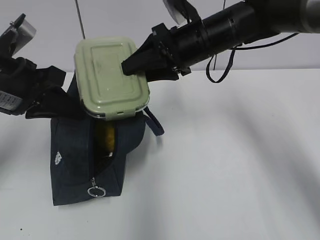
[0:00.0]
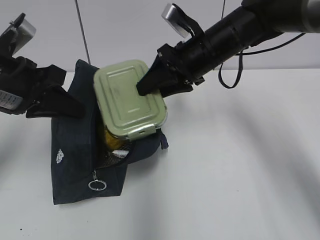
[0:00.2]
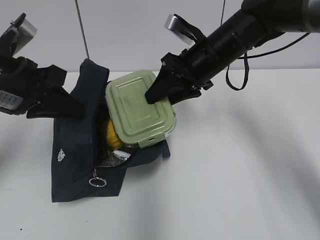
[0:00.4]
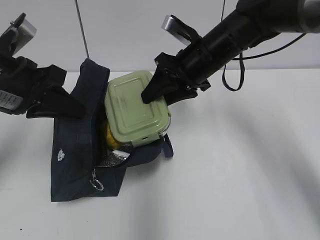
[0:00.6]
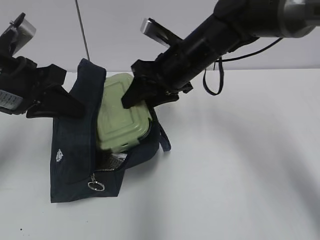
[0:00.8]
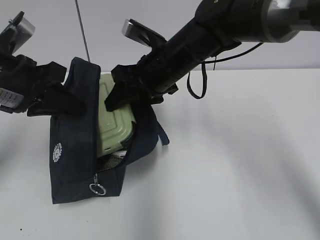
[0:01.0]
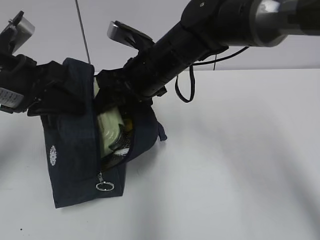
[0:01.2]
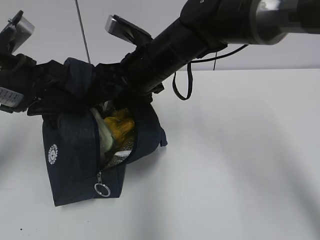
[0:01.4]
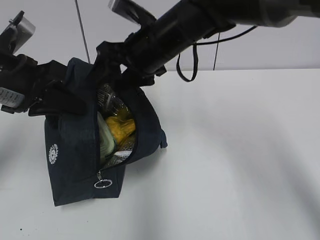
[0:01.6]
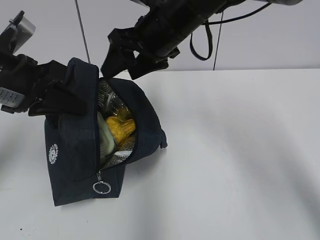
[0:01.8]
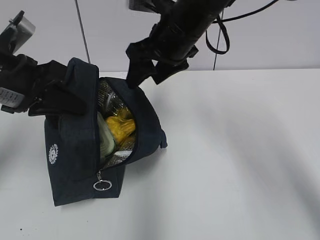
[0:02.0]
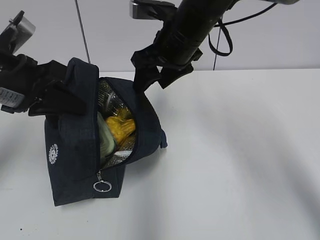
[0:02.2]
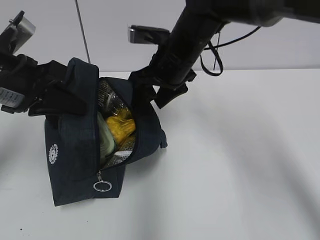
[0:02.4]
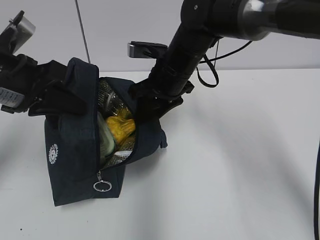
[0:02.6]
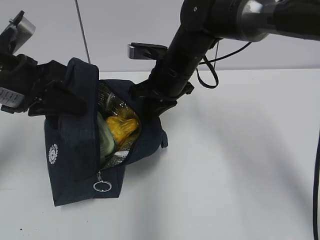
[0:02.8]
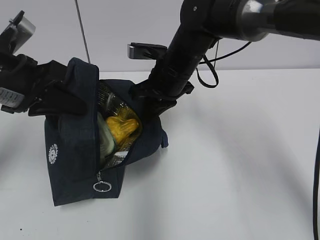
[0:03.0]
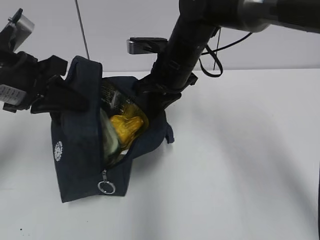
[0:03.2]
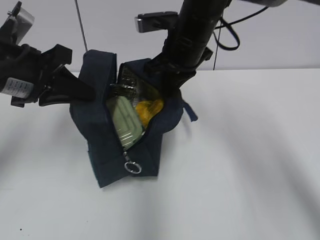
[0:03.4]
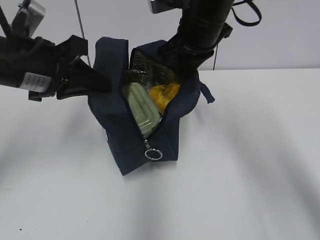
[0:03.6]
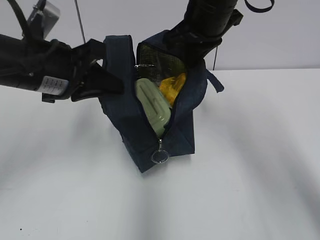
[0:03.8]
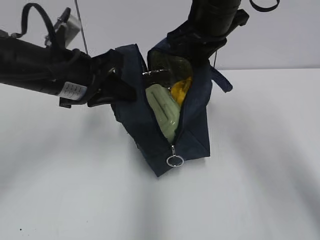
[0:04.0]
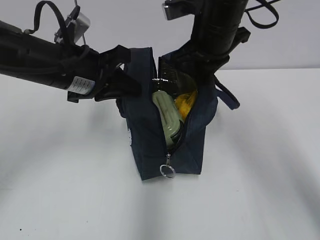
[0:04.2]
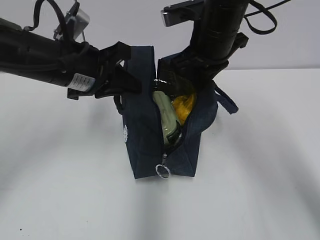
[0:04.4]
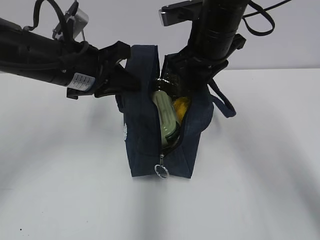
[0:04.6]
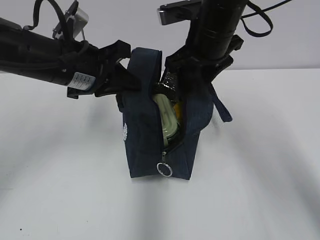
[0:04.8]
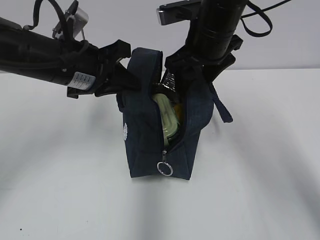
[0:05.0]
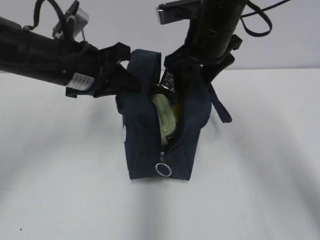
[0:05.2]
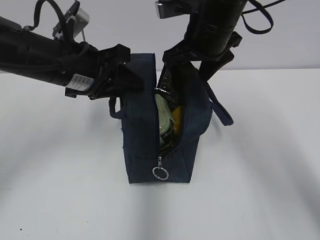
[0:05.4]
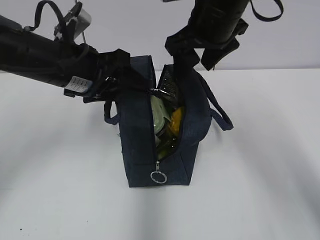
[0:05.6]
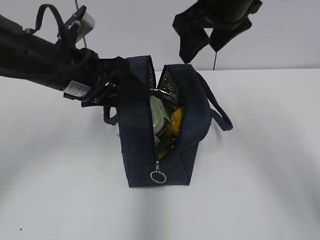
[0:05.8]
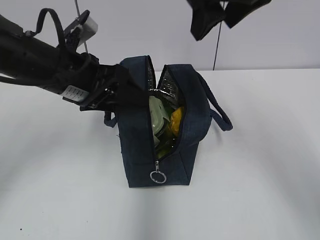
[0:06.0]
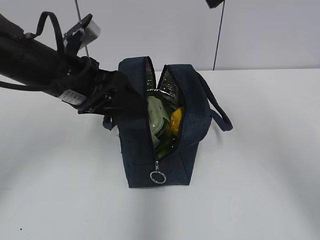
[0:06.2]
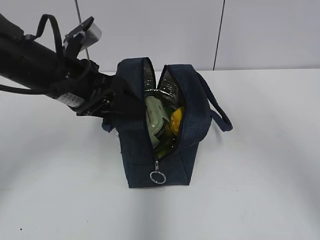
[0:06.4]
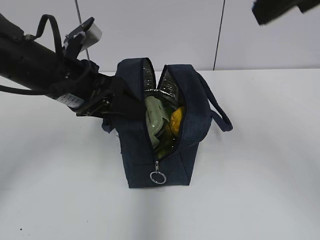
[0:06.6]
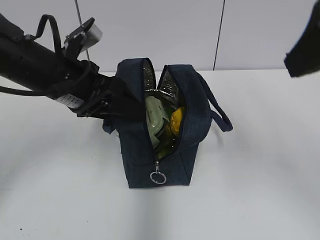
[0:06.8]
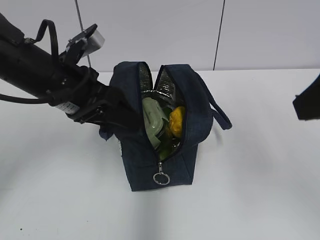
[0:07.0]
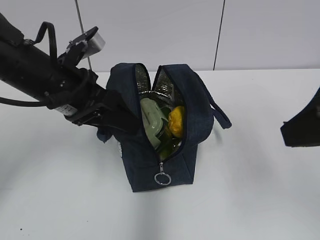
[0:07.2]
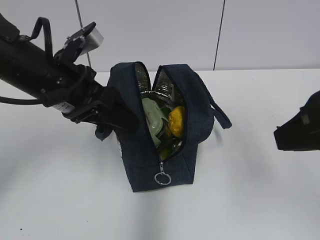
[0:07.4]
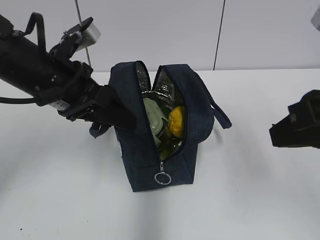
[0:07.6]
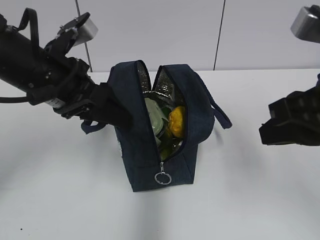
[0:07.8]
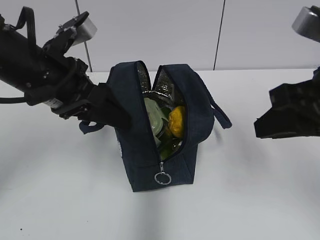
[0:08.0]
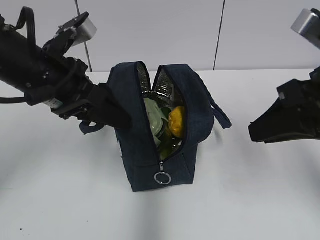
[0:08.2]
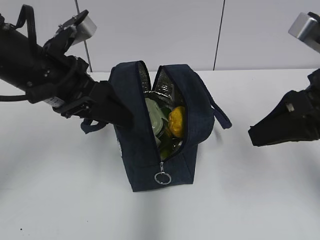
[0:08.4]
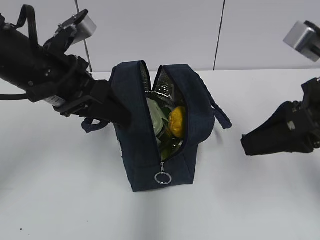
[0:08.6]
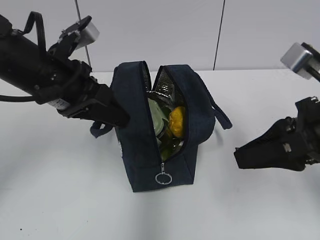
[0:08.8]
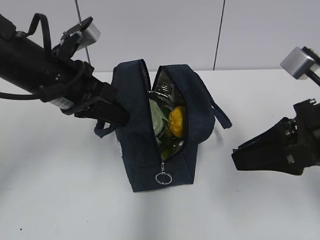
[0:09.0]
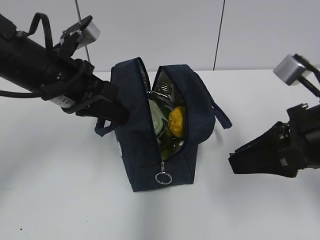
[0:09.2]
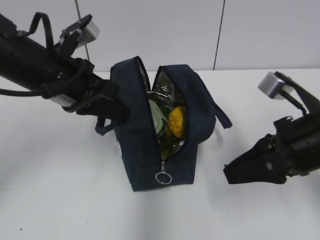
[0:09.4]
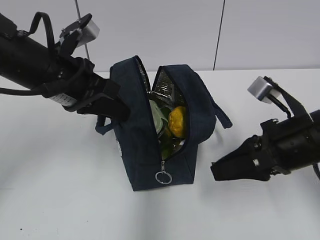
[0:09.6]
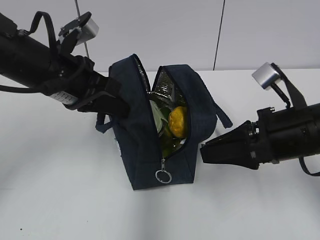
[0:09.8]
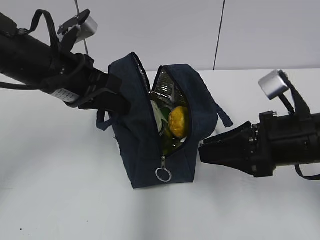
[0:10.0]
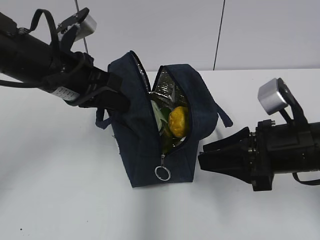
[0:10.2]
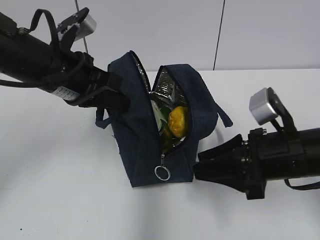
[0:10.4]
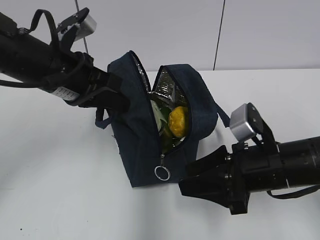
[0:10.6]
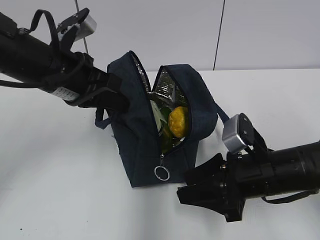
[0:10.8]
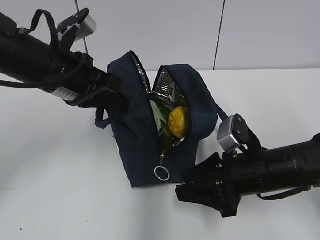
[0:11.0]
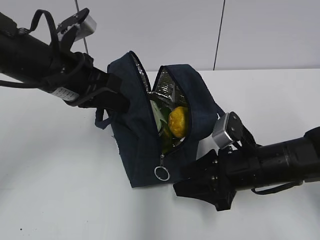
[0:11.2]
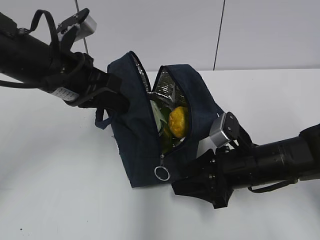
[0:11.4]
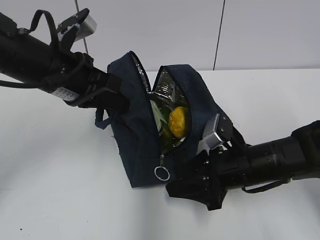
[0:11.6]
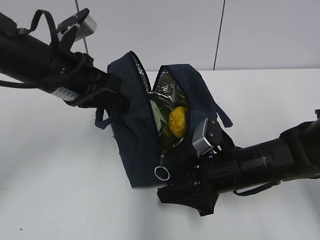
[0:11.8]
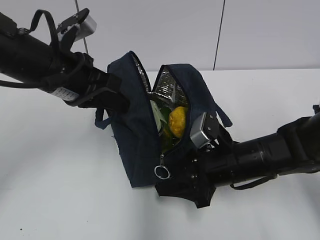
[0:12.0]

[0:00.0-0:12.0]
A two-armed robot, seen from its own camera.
Step, 0:01.6 to 0:02.8: Grab the lunch bag with your right hand.
Step, 0:03.0 to 0:05.4: Move the lunch bag to the right.
0:00.0 to 0:01.6: The right gripper is displaced to the left by roughly 5 cm.
0:01.6 to 0:03.0: The right gripper goes approximately 5 cm downward, and closes up.
0:03.0 to 0:04.4: The left gripper shifts approximately 10 cm to the right, while the right gripper travels upward and to the right by some 10 cm.
0:04.4 to 0:06.0: The right gripper shifts some 15 cm upward and backward, and opens, while the left gripper opens.
0:06.0 to 0:07.6: The right gripper is displaced backward and downward by some 20 cm, and closes.
0:07.6 to 0:09.0: The right gripper moves downward, roughly 5 cm. The left gripper closes.
0:09.0 to 0:10.4: The right gripper heads downward, covering about 10 cm.
0:10.4 to 0:12.0: The right gripper heads downward and to the left, covering some 10 cm.

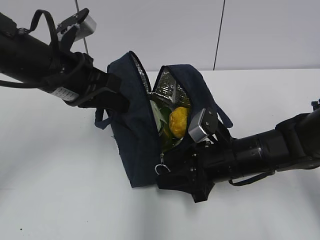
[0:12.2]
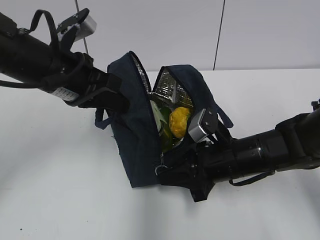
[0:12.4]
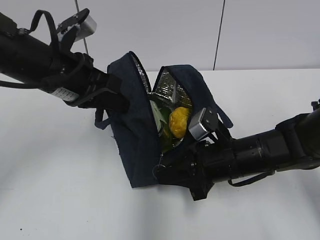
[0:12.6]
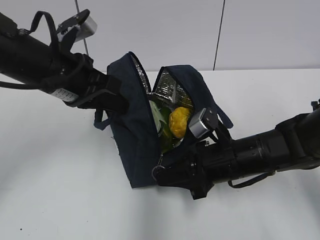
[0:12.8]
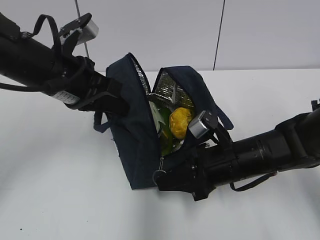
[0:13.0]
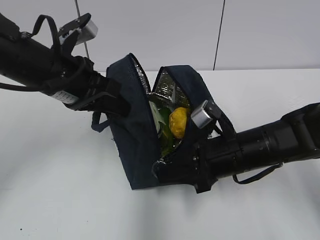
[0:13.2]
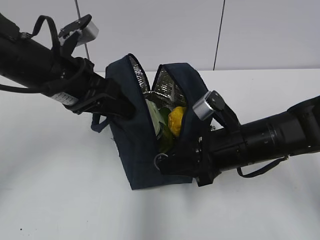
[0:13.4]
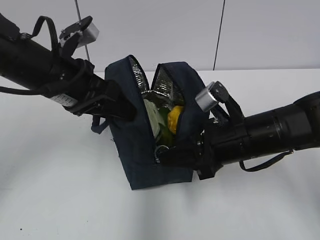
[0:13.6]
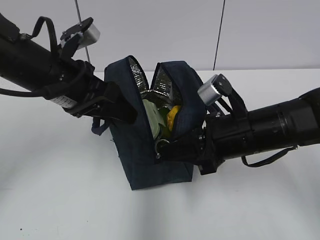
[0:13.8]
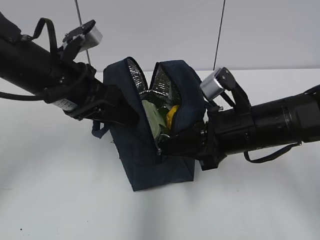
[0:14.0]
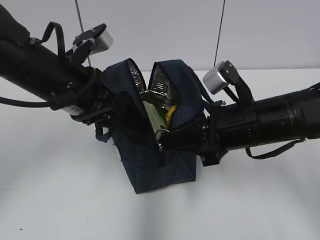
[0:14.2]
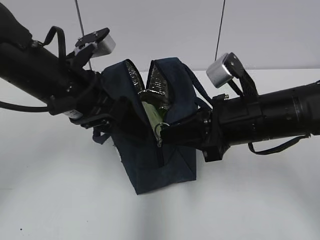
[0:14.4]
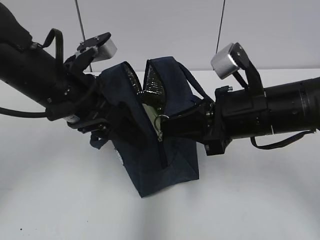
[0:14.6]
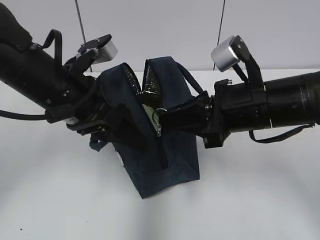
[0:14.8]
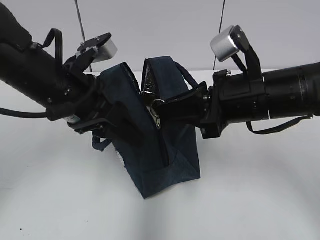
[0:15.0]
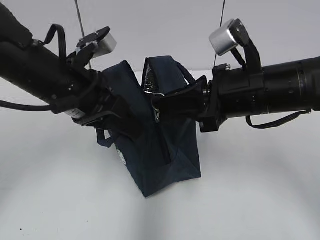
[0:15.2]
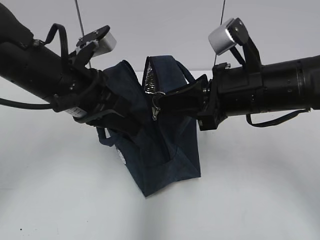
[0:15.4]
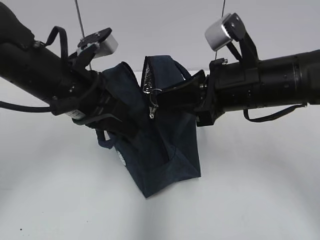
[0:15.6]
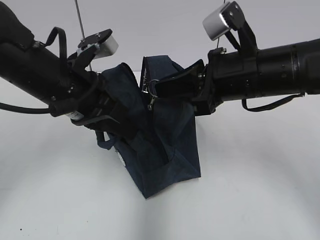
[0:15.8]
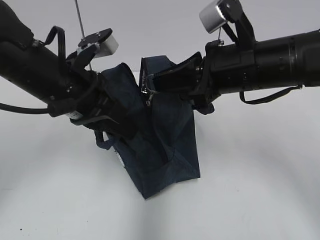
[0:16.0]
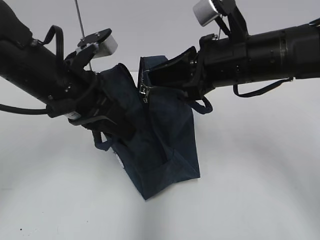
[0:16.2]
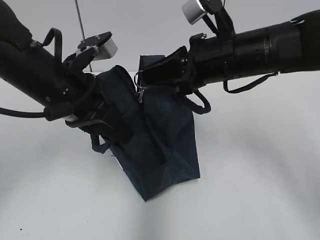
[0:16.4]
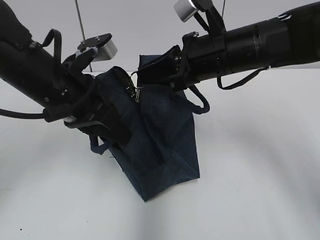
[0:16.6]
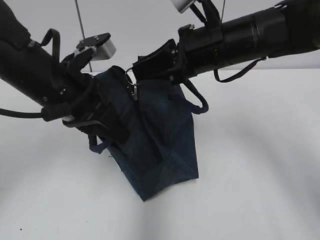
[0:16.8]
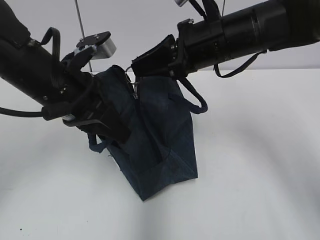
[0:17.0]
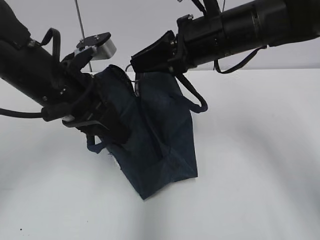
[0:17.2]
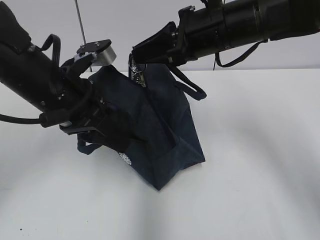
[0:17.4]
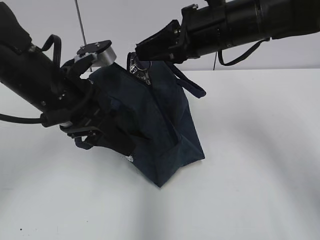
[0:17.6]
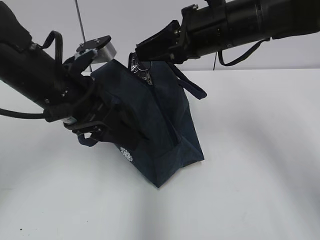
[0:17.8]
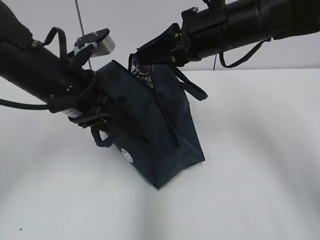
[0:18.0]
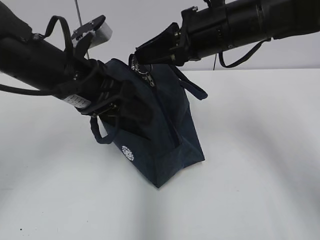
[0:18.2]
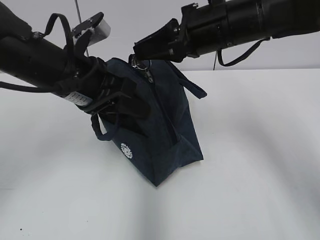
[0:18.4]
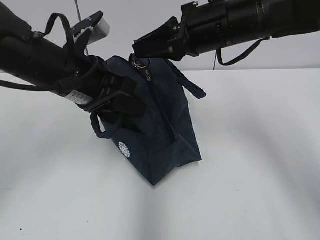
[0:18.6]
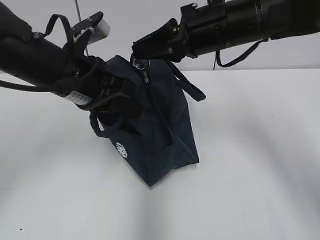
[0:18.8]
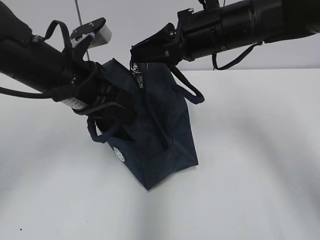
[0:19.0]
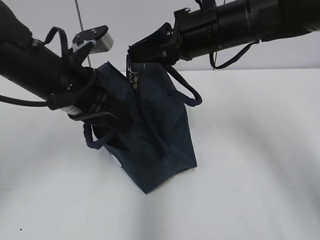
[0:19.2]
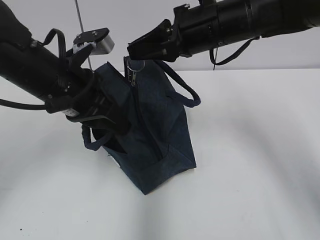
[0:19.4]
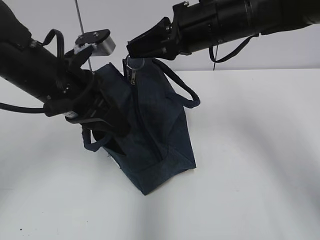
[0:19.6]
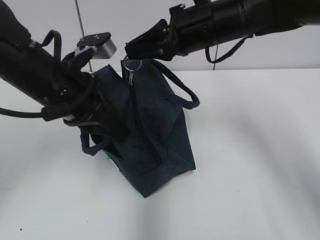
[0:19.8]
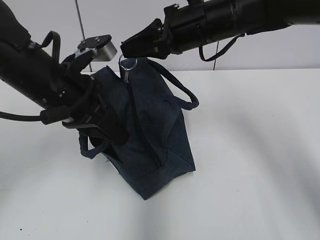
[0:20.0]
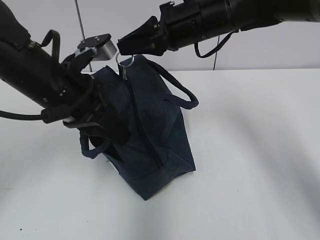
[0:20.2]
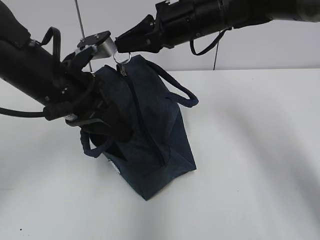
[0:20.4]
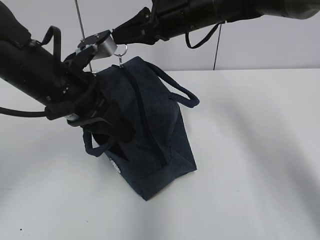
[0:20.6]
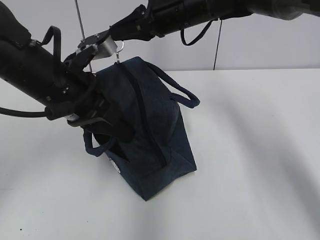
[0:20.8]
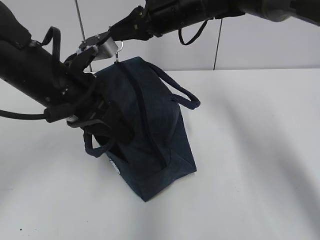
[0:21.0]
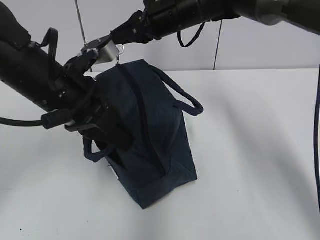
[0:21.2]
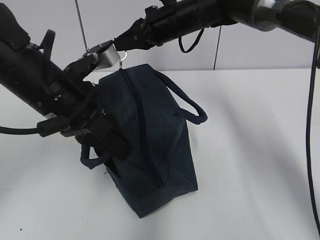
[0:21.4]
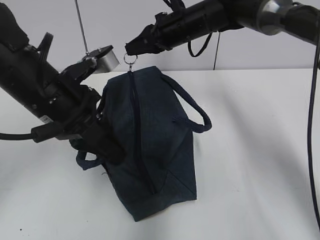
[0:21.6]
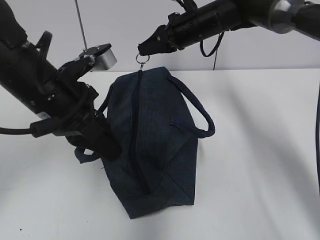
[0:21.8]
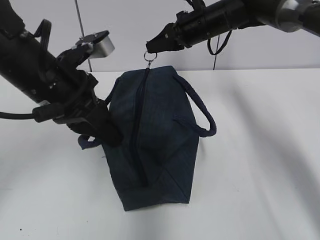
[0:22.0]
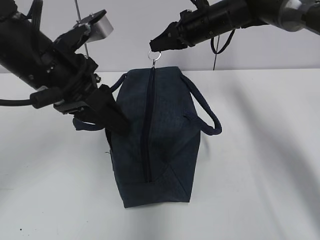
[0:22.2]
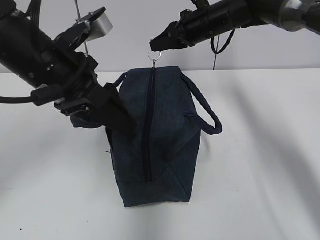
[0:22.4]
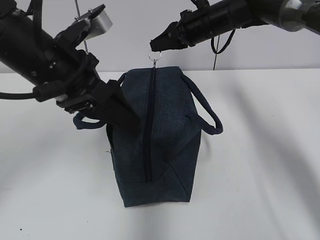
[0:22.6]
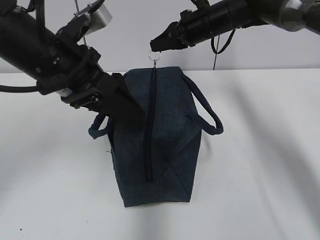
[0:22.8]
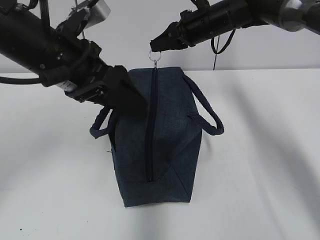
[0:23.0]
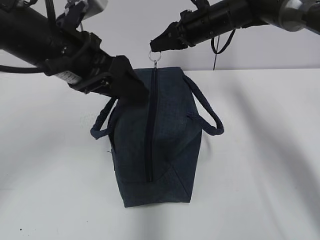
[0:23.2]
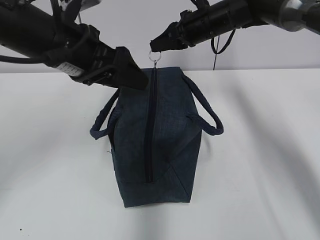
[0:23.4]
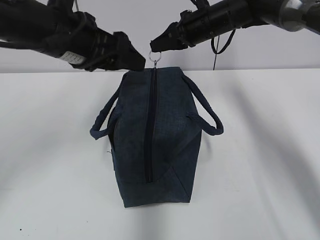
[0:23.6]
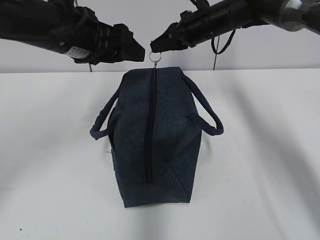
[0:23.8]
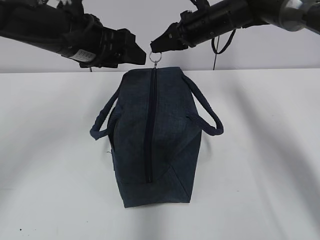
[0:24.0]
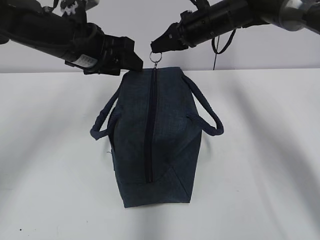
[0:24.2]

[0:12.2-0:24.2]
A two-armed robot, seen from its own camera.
0:12.2 to 0:13.8: The left gripper opens its fingers. The right gripper moves upward, approximately 5 cm, and closes.
0:13.8 to 0:15.2: The left gripper closes. Meanwhile the right gripper shifts about 5 cm upward.
0:15.2 to 0:16.6: The right gripper shifts some 5 cm forward. The left gripper closes.
0:16.6 to 0:18.2: The left gripper opens up.
0:18.2 to 0:19.8: The left gripper closes.
0:19.8 to 0:21.2: The right gripper heads forward, covering approximately 10 cm.
0:21.2 to 0:22.6: The left gripper opens up; the right gripper shifts some 5 cm to the right.
0:22.6 to 0:24.2: The left gripper travels forward by roughly 10 cm.
